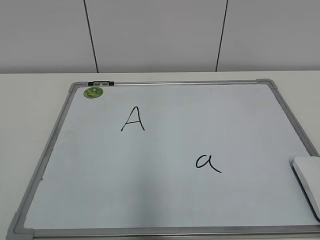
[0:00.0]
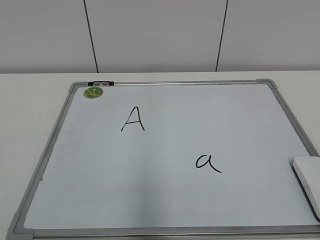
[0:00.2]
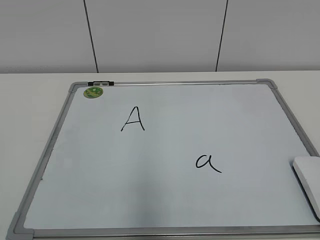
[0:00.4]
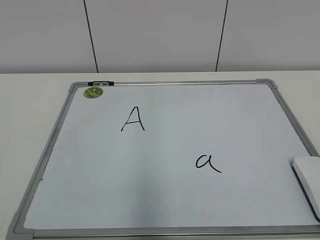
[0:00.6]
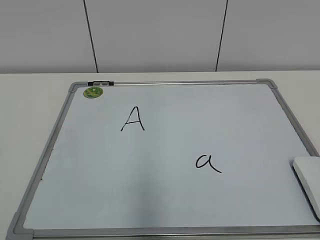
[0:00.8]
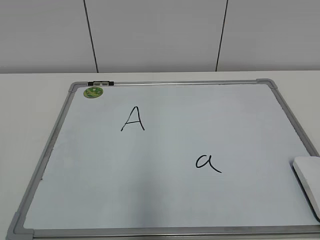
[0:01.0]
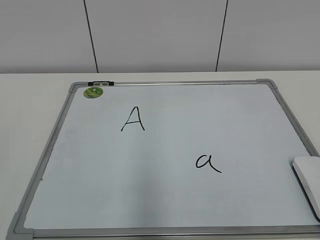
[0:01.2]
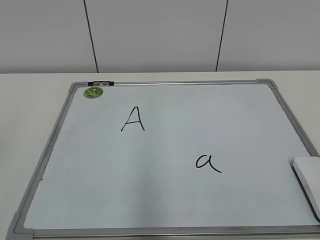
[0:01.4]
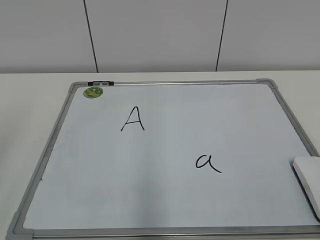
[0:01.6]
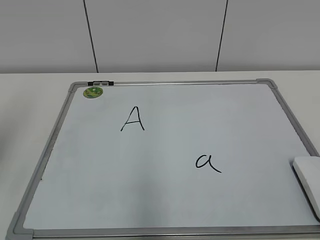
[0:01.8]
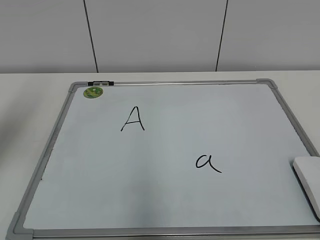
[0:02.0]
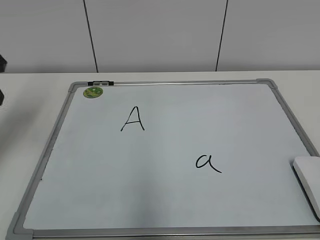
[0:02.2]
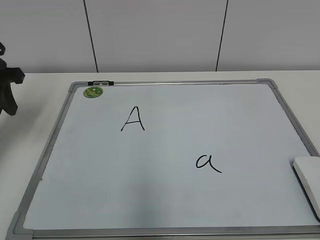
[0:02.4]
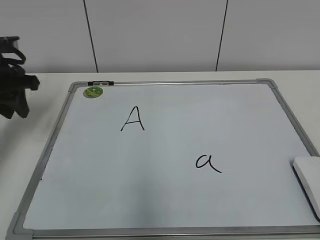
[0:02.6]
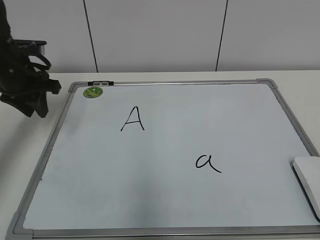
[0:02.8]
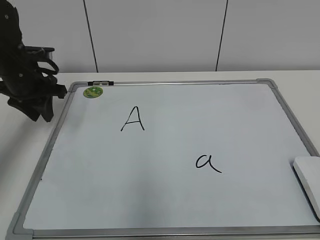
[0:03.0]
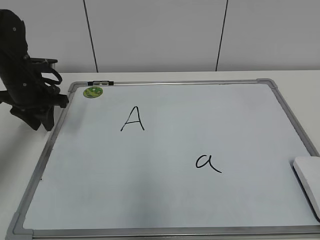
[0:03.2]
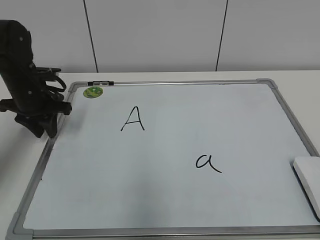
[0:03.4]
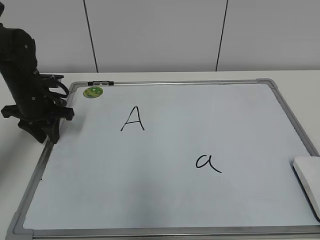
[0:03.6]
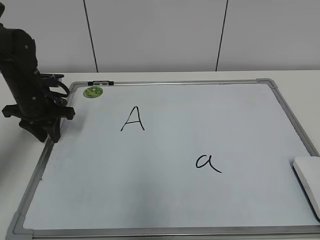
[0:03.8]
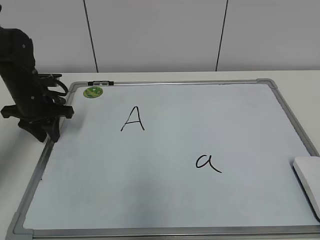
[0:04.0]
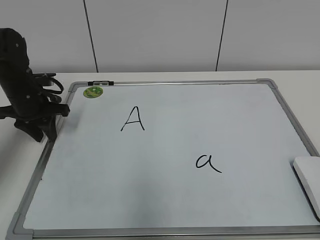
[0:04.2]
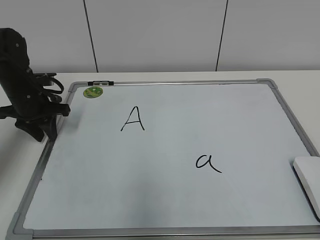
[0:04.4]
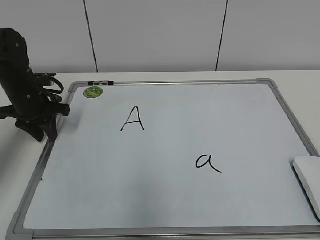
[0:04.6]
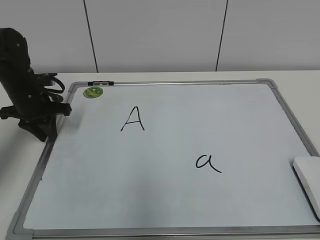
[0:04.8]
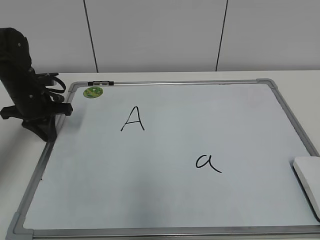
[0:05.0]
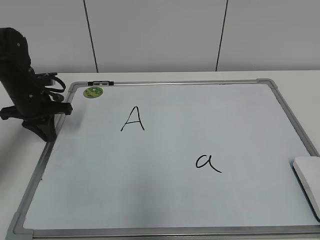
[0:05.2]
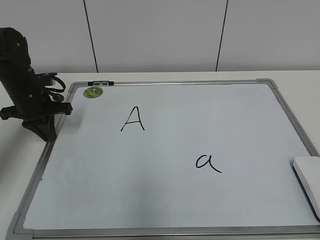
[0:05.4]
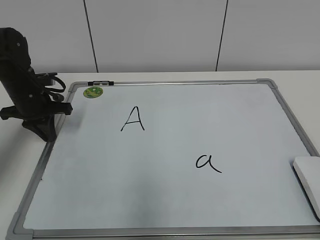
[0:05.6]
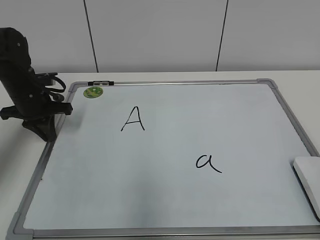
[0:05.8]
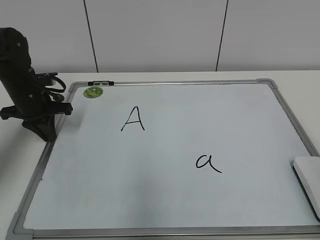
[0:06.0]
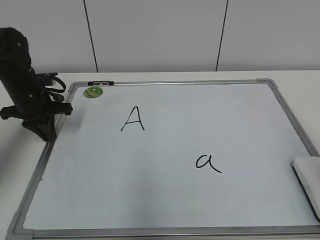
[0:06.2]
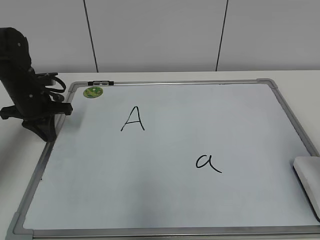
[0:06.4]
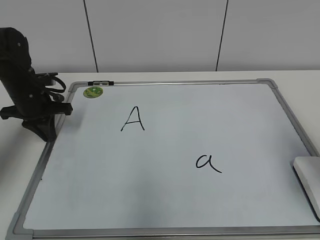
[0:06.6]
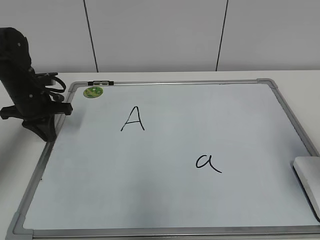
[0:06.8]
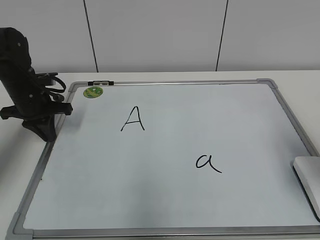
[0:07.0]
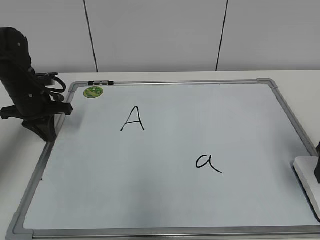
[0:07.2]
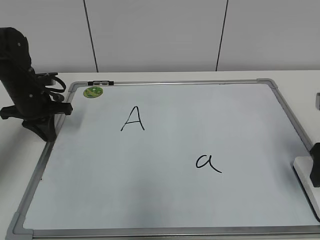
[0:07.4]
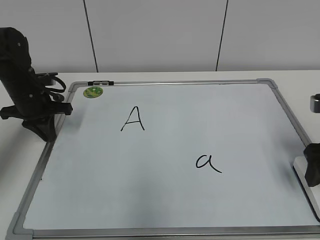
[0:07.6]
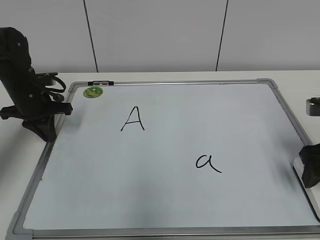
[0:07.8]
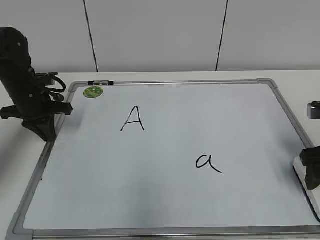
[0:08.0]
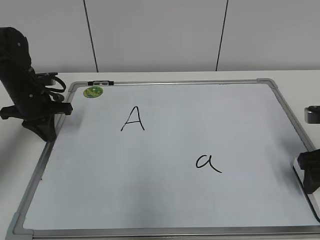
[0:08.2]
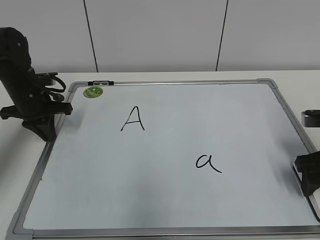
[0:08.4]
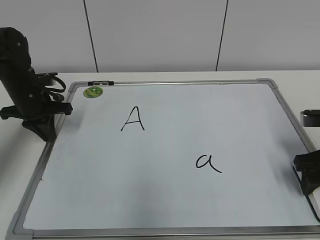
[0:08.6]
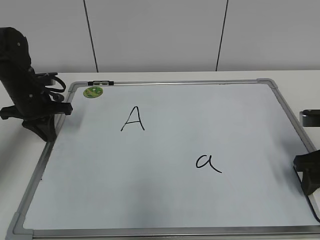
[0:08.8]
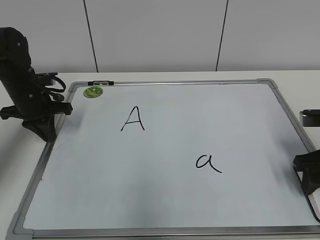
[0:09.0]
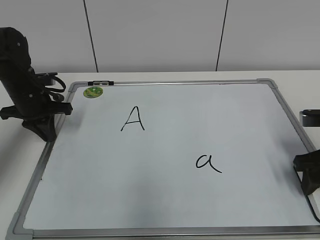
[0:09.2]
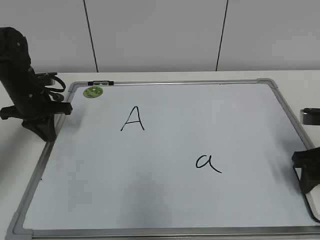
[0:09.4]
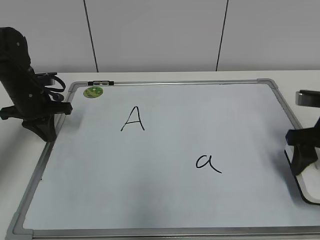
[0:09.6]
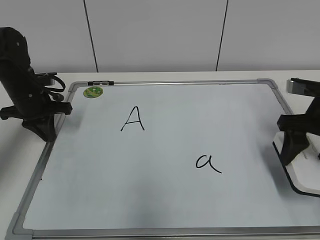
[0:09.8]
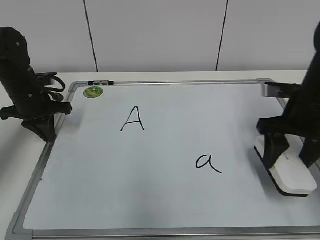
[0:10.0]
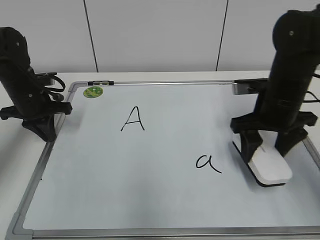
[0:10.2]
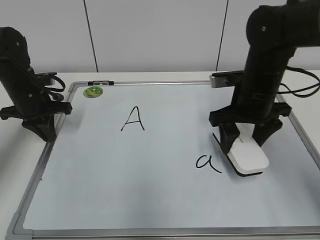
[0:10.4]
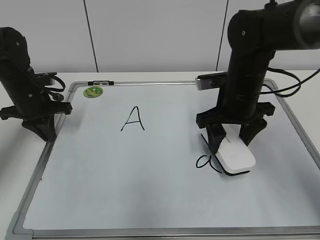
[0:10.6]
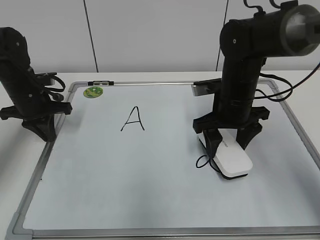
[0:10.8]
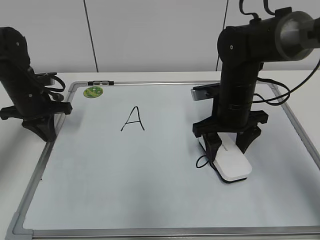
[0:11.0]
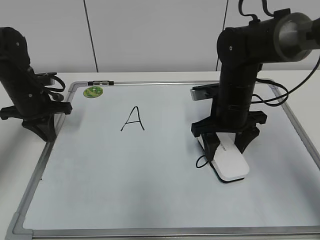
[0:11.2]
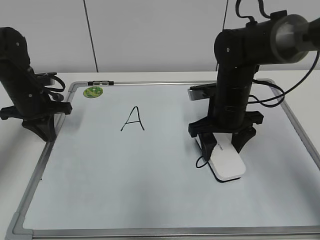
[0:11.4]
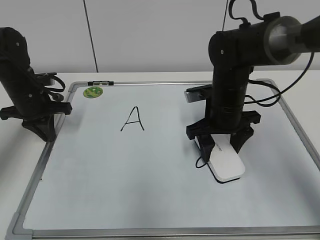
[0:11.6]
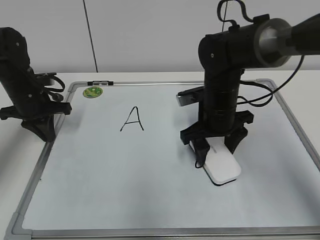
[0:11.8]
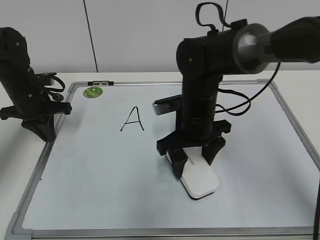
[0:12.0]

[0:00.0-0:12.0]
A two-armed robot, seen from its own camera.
Task of the whole recording: pick up the eraser on the blackboard and erase the letter "a".
Step, 0:00.0 to 0:05.4: Hold the drawing board steady with your left hand.
0:01.6 to 0:03.0: The left gripper moves forward and downward, roughly 30 cm.
0:03.0 to 0:04.4: The left gripper is displaced downward by about 5 cm.
0:04.4 to 0:06.0: The left gripper closes its fingers.
0:06.0 to 0:07.6: The right gripper is displaced forward and downward by roughly 20 cm, and opens.
0:07.6 to 0:09.0: The right gripper closes its fingers.
0:09.0 to 0:10.4: The right gripper moves to the left and forward, some 15 cm.
0:10.4 to 0:12.0: The right gripper travels to the left by approximately 10 cm.

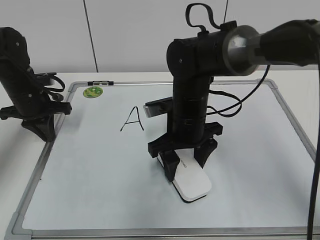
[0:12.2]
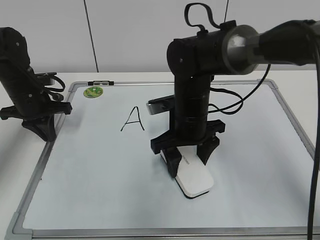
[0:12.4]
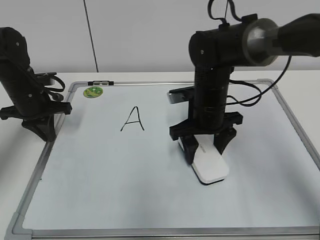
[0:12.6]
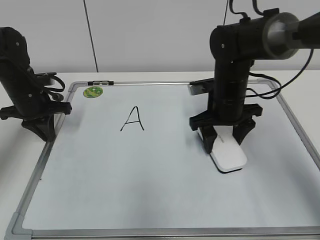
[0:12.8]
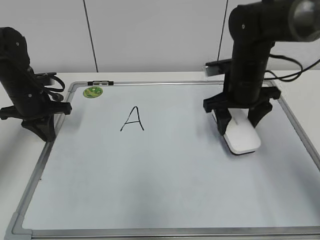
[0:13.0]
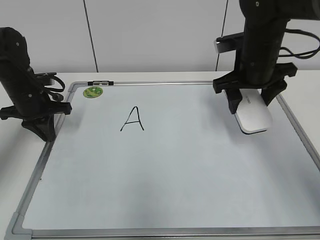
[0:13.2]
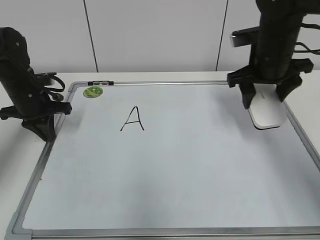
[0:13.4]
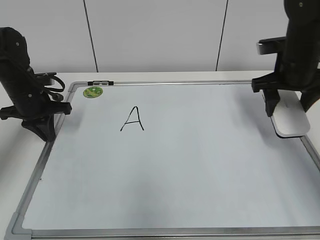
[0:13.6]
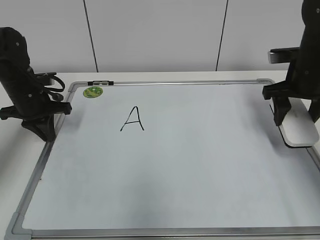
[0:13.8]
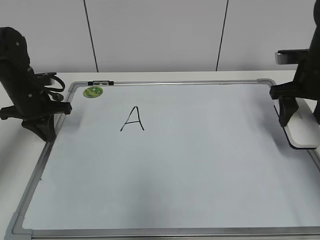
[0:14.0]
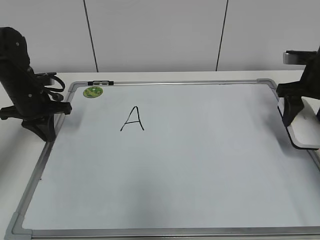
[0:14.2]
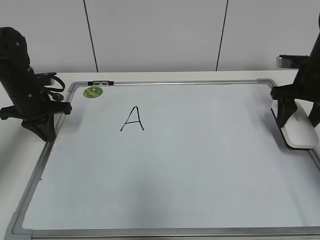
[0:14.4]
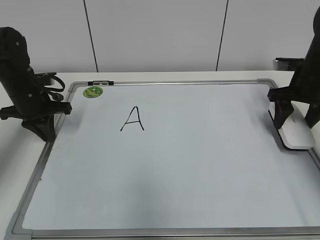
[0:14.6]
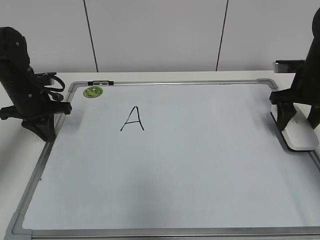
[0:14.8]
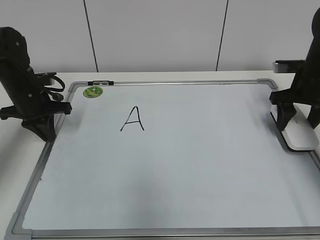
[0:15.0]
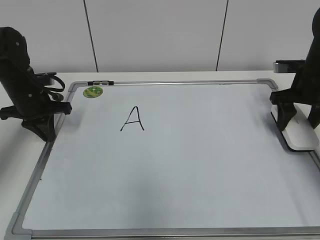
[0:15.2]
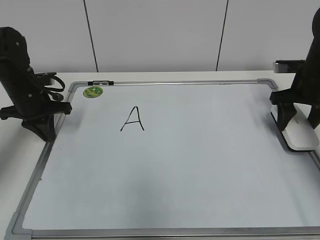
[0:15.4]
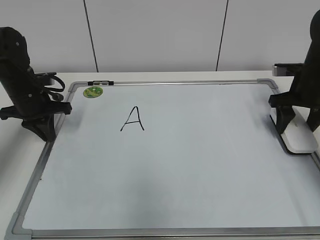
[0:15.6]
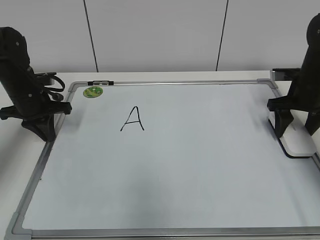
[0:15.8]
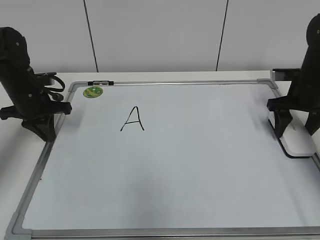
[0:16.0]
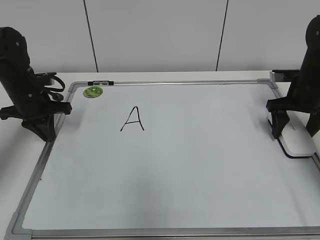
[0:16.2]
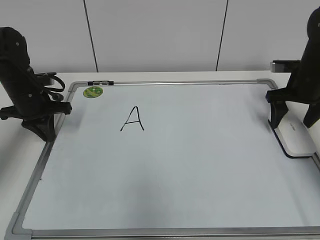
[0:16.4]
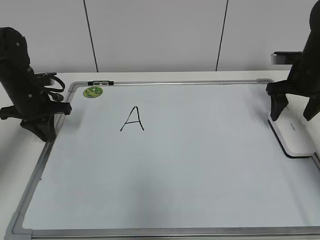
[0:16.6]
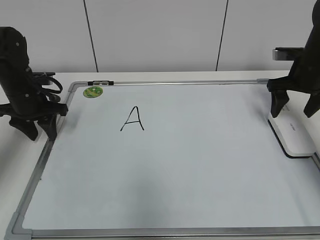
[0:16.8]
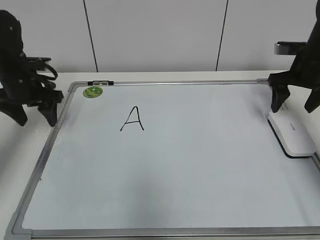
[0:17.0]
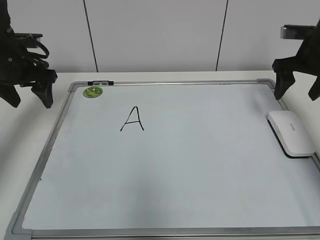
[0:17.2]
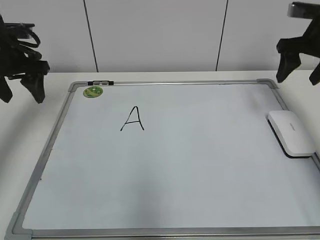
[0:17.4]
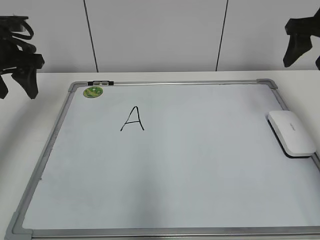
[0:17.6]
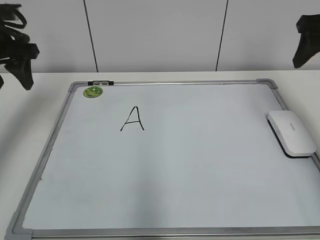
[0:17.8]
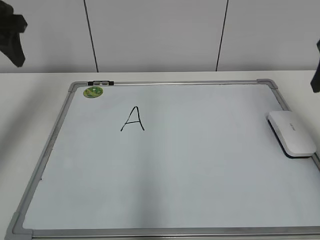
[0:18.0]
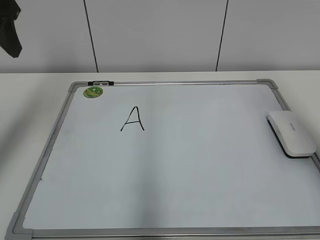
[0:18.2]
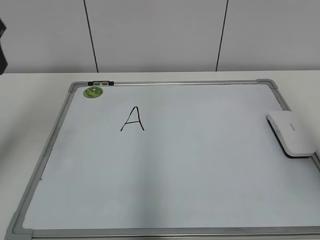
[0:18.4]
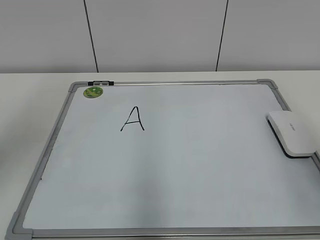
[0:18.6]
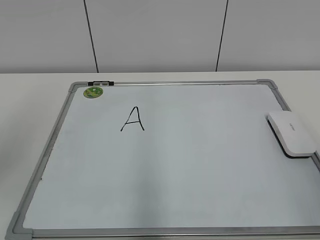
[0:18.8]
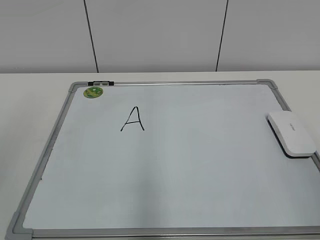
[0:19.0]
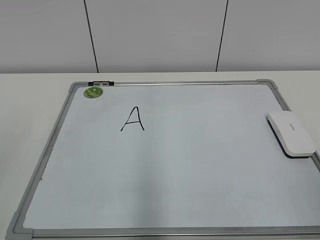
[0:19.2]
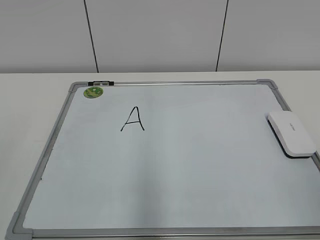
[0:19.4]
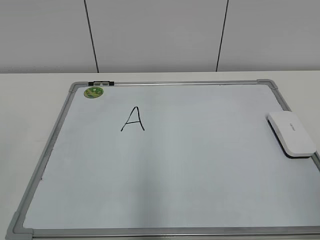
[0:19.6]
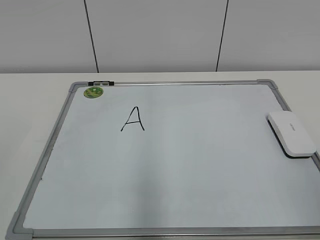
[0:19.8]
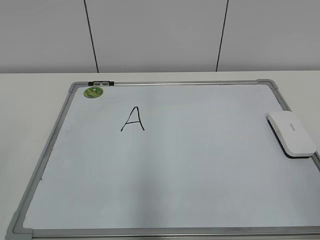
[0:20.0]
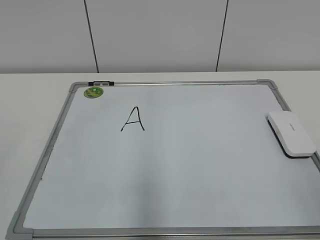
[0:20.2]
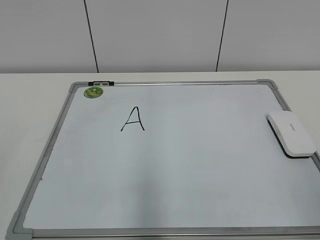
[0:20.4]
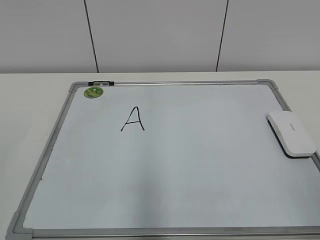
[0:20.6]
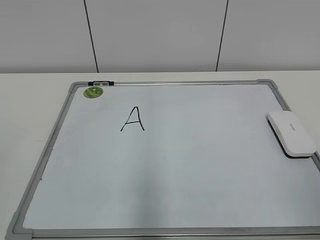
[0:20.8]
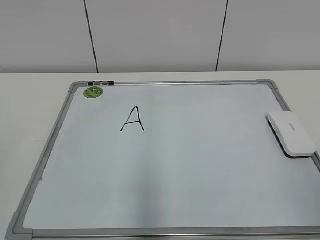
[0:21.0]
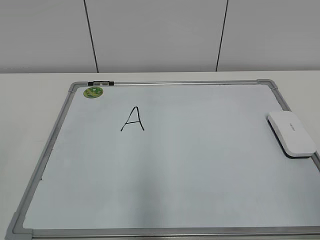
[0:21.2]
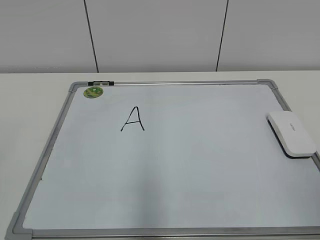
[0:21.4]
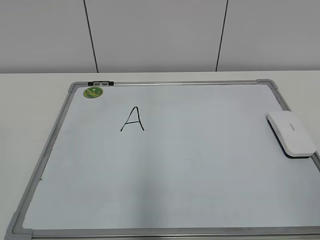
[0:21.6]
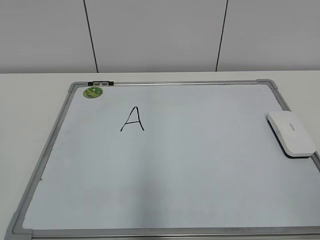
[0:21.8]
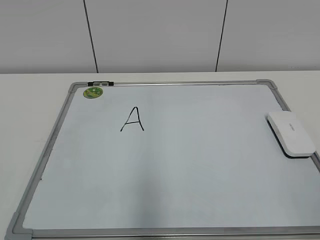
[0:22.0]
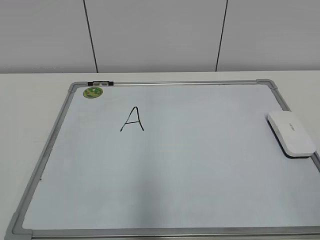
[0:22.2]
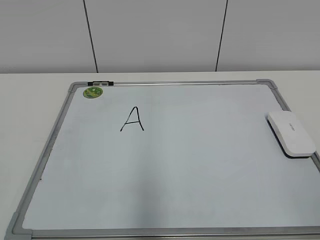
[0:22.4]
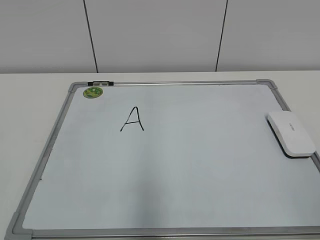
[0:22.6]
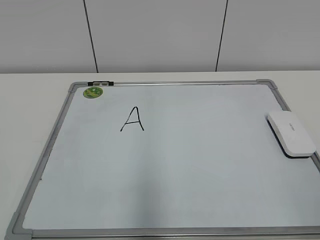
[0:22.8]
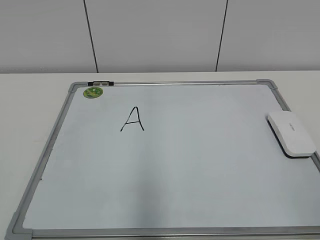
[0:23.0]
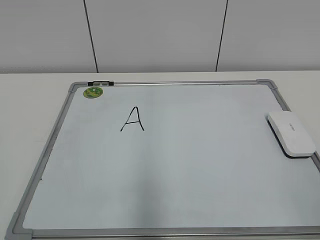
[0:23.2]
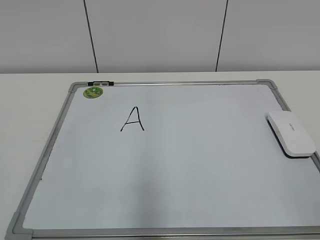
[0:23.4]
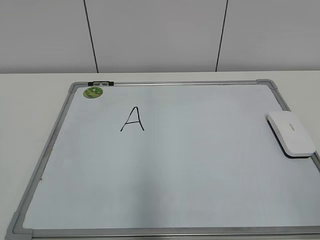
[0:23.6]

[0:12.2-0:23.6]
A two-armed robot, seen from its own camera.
Task of the whole recording: pick up the eraser on the blackboard and erase the letter "a".
Step, 0:13.2 to 0:16.0: Put down the eraser with your right hand.
0:12.2 to 0:13.6: The right gripper goes roughly 20 cm to the right.
0:13.6 to 0:15.0: The right gripper goes roughly 5 cm to the right.
0:15.0 to 0:16.4: The right gripper opens.
0:16.4 to 0:17.8: Both grippers travel together upward, roughly 15 cm. The left gripper opens. Meanwhile the right gripper closes up.
0:17.8 to 0:19.4: Both grippers travel together backward, approximately 30 cm.
0:22.2 to 0:23.6: The two grippers keep their place.
